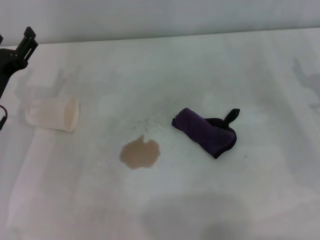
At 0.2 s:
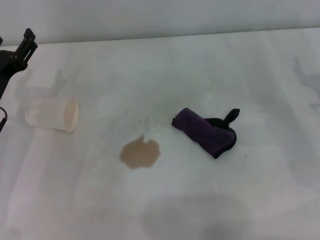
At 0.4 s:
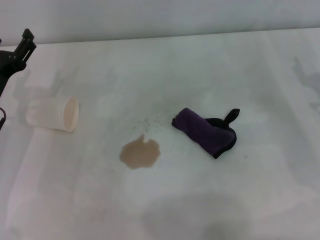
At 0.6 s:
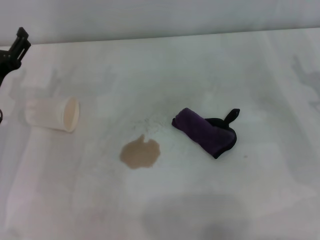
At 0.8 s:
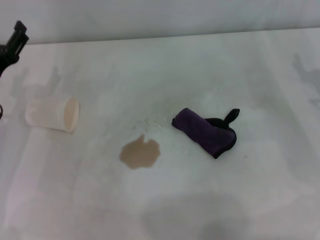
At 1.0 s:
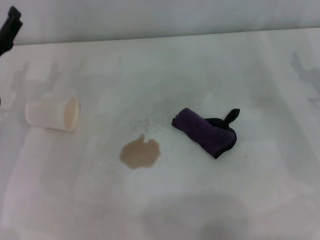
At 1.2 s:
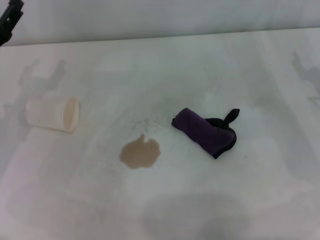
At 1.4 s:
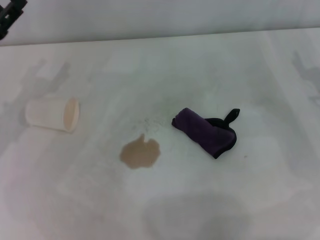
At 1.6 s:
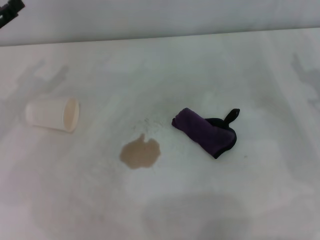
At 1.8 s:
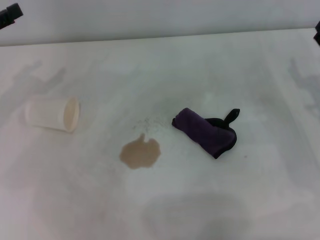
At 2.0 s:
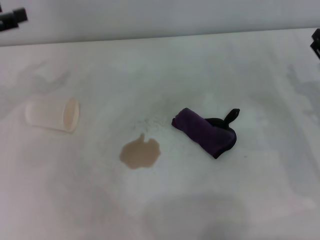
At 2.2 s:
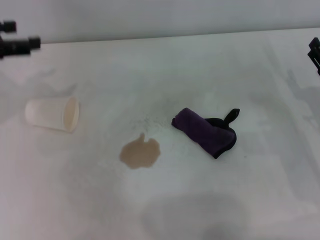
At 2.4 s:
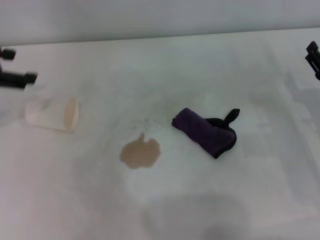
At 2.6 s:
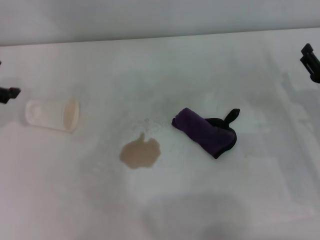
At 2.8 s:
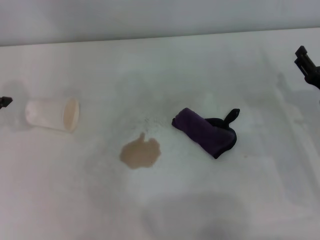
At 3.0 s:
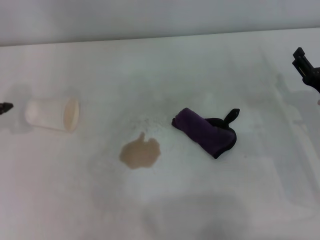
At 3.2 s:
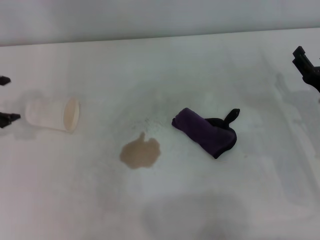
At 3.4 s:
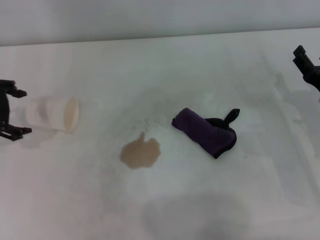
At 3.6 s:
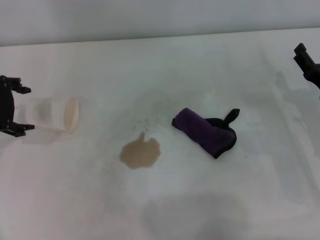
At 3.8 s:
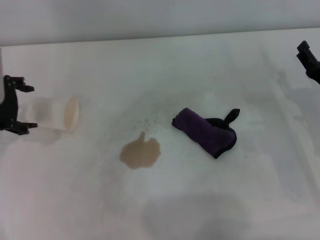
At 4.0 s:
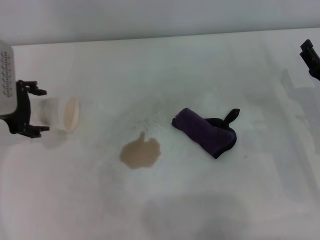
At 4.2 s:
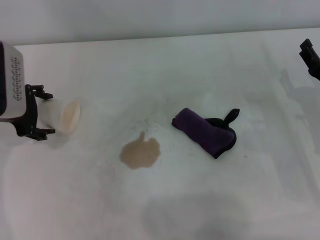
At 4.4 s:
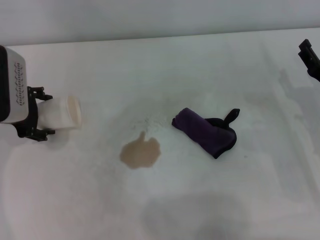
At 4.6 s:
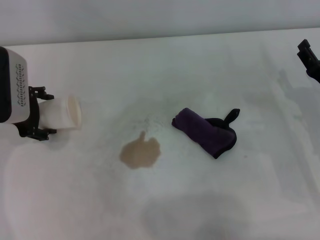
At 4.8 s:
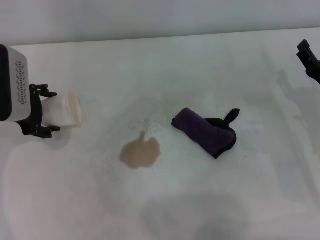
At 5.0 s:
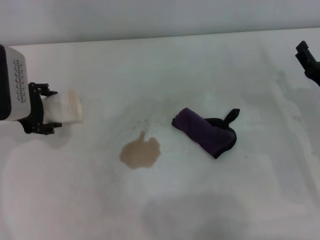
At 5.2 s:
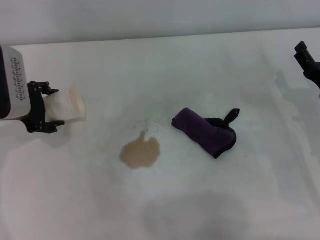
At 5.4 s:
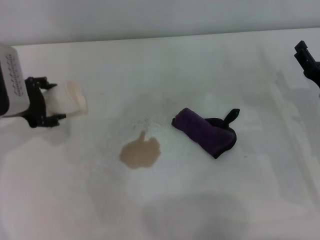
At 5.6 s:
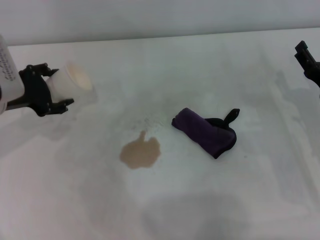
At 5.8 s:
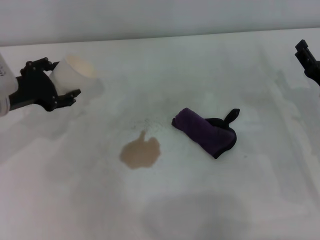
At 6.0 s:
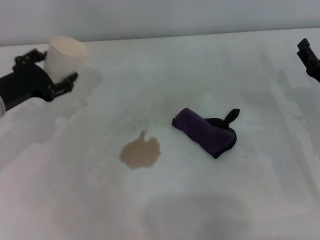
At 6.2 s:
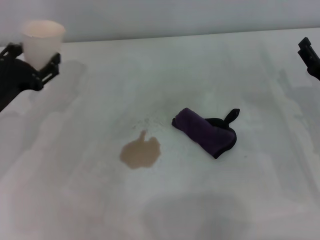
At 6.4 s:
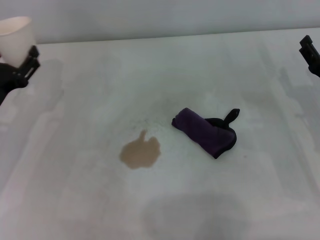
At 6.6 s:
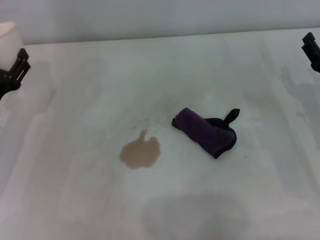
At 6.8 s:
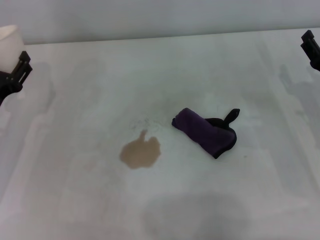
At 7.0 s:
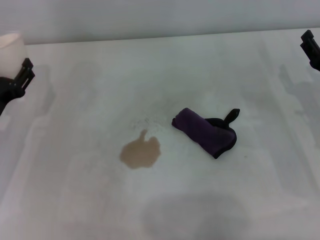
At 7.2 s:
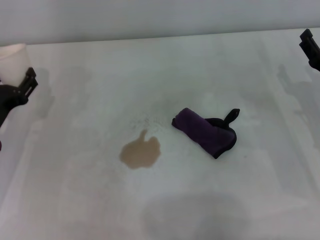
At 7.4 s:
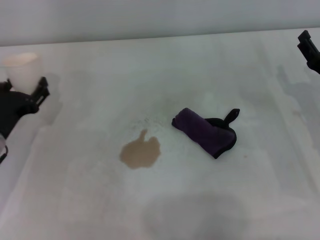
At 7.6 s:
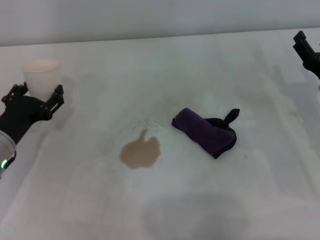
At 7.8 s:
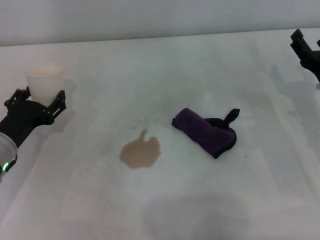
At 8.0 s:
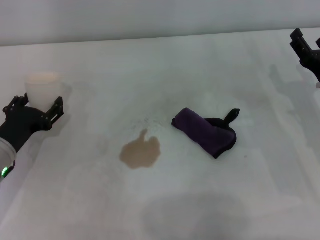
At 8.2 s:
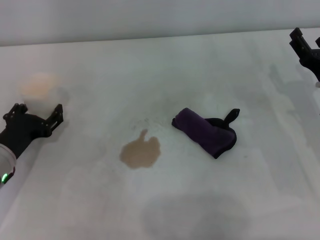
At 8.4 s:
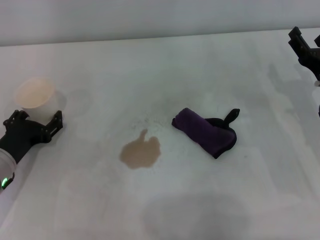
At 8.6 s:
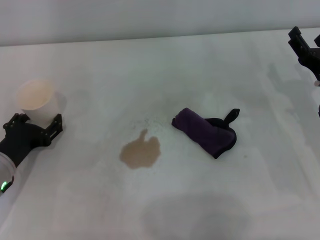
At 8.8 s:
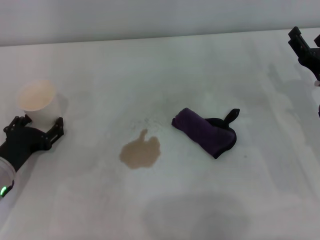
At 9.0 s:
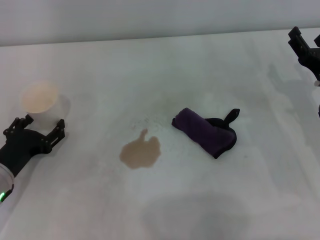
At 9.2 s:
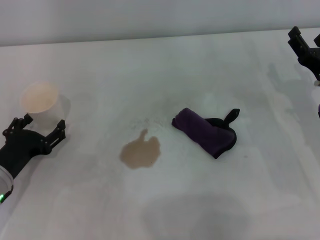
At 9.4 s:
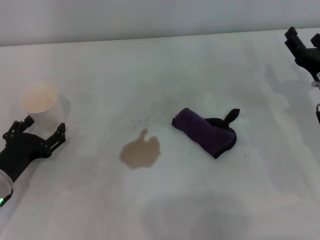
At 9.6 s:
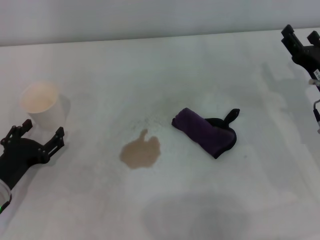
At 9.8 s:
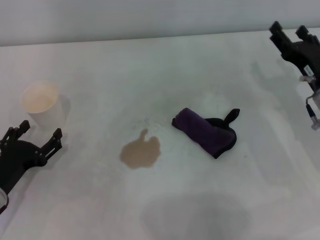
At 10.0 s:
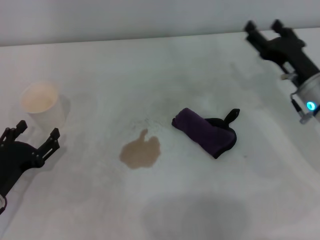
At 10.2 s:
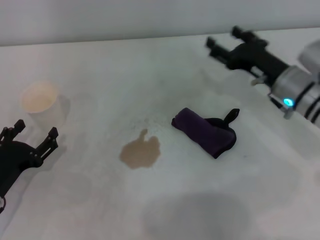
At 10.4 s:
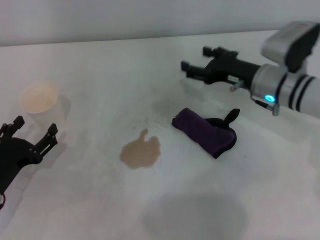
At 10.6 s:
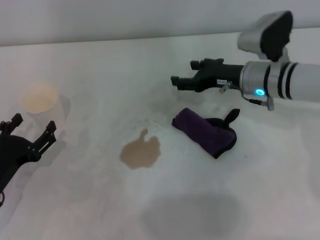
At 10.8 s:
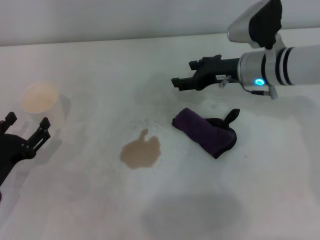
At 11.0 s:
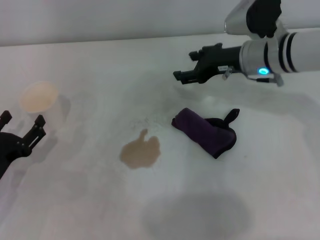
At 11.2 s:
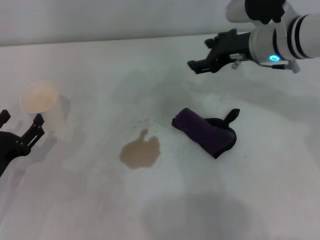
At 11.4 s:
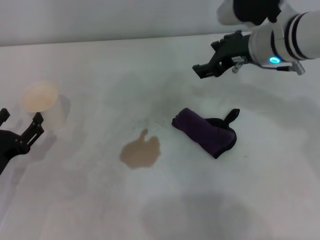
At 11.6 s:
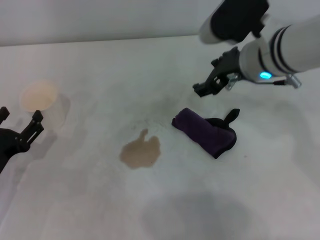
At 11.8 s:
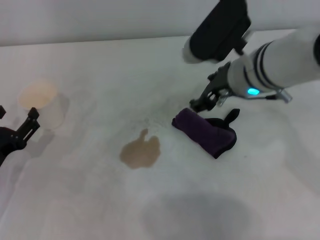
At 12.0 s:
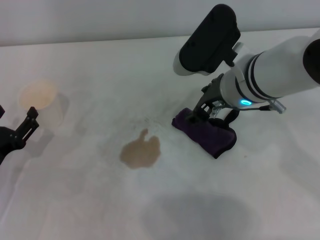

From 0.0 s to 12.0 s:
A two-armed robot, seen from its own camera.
Step, from 0.0 s to 5.0 s: Grasp the paper cup with the left gripper.
Step, from 5.4 s to 8.2 s: Stand the paper cup upright with the left gripper.
From 0.0 s to 1.6 s: The left gripper travels upward and to the left by roughly 10 cm.
From 1.6 s to 3.0 s: The right gripper ends up some 5 cm from where it was; the left gripper travels upward by approximately 5 cm.
From 3.0 s to 4.4 s: The left gripper travels downward and to the right by roughly 10 cm.
From 6.0 s to 7.6 s: The left gripper travels downward by roughly 5 cm.
From 7.6 s to 9.0 s: There are only small adjustments of the grippers.
From 9.0 s to 10.4 s: The right gripper is displaced to the left and forward by approximately 10 cm.
From 10.4 s to 12.0 s: The right gripper goes about 15 cm upward and to the left.

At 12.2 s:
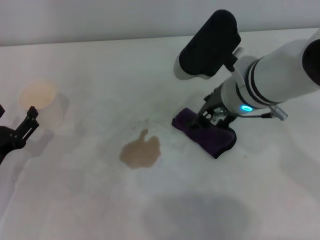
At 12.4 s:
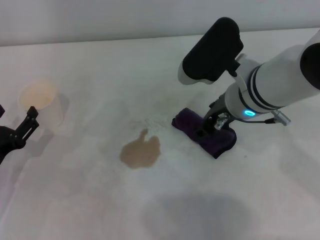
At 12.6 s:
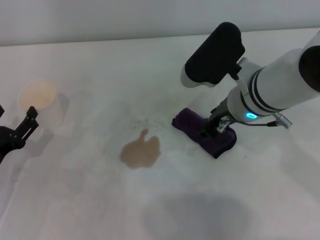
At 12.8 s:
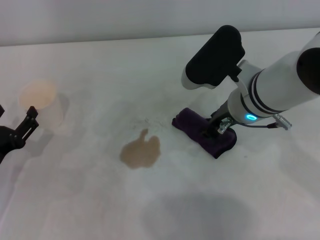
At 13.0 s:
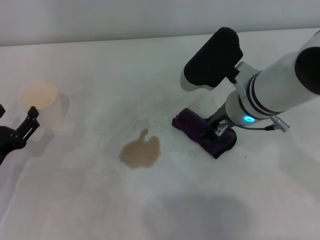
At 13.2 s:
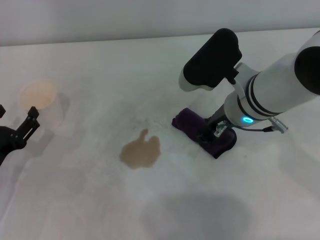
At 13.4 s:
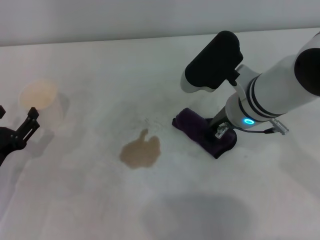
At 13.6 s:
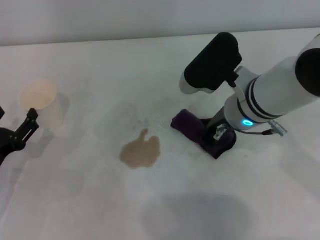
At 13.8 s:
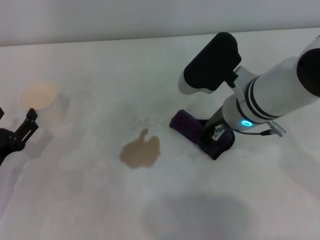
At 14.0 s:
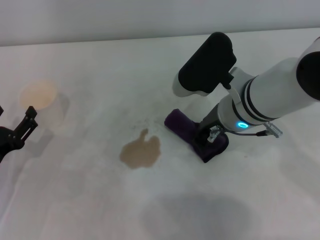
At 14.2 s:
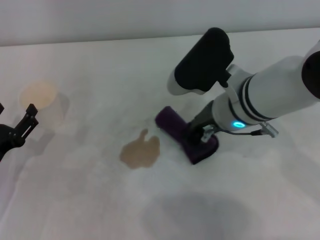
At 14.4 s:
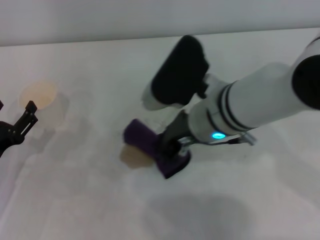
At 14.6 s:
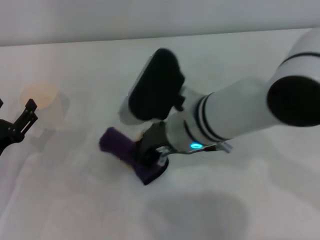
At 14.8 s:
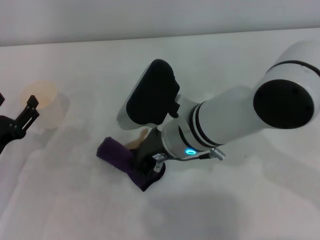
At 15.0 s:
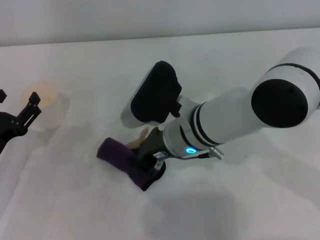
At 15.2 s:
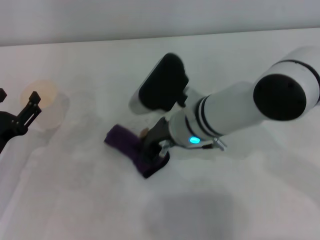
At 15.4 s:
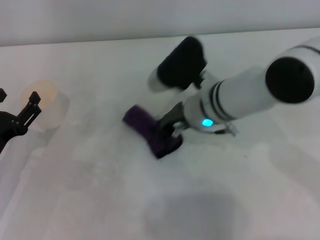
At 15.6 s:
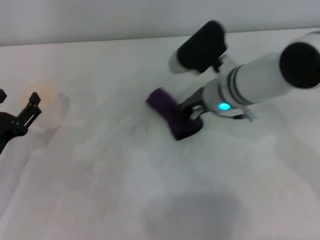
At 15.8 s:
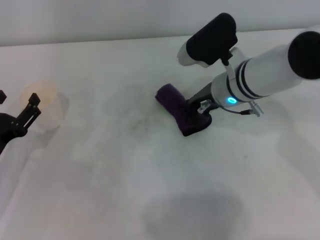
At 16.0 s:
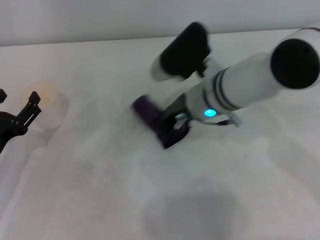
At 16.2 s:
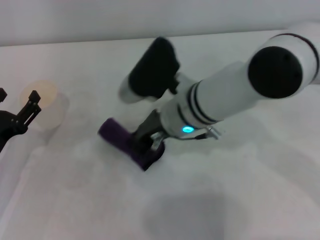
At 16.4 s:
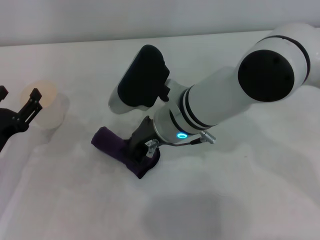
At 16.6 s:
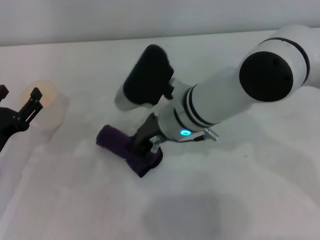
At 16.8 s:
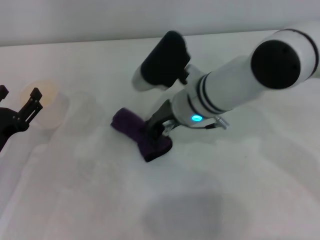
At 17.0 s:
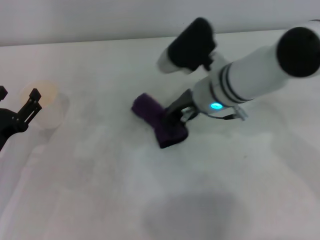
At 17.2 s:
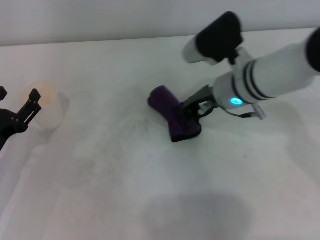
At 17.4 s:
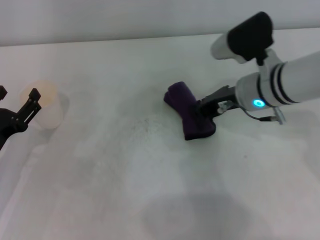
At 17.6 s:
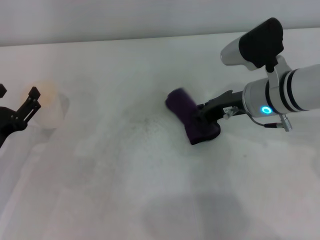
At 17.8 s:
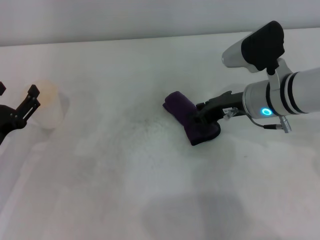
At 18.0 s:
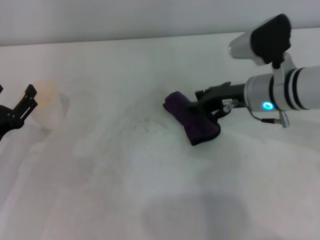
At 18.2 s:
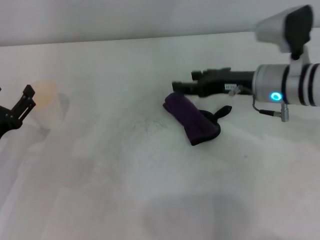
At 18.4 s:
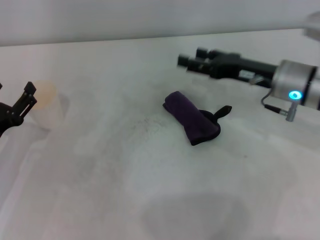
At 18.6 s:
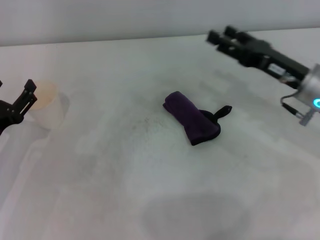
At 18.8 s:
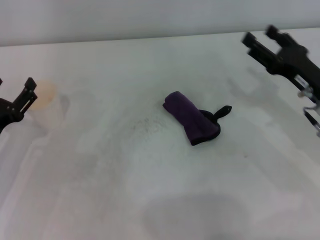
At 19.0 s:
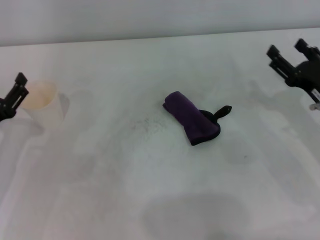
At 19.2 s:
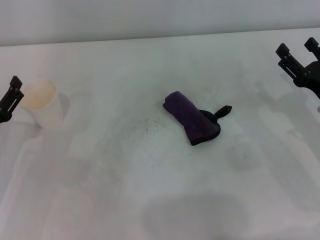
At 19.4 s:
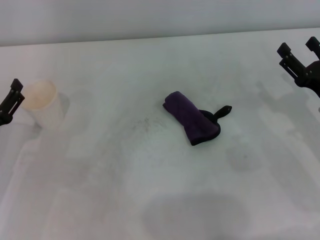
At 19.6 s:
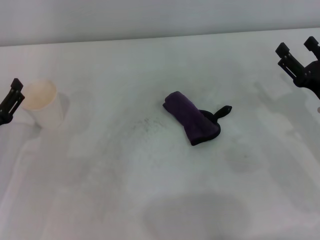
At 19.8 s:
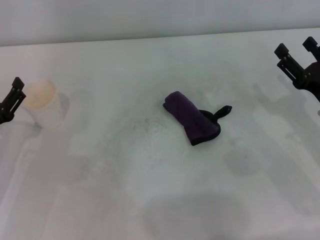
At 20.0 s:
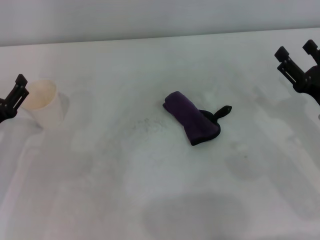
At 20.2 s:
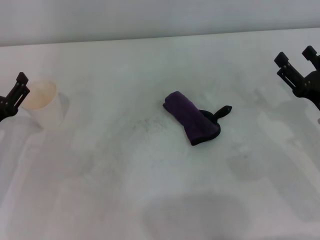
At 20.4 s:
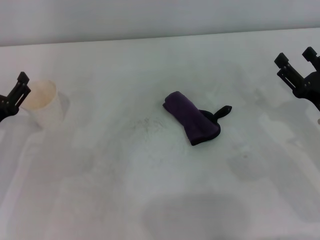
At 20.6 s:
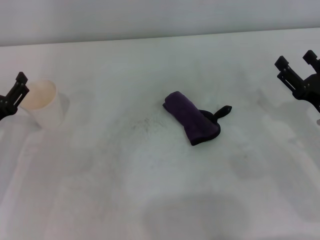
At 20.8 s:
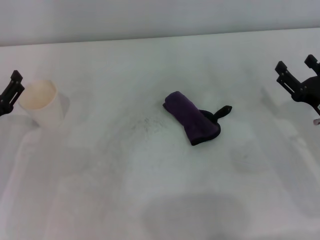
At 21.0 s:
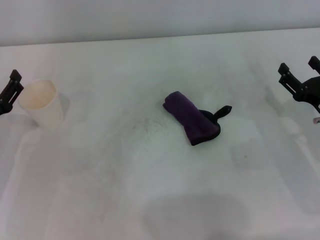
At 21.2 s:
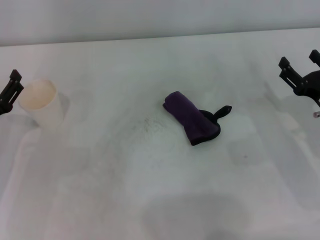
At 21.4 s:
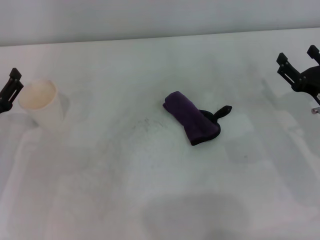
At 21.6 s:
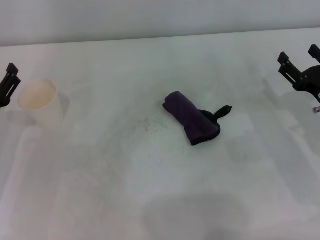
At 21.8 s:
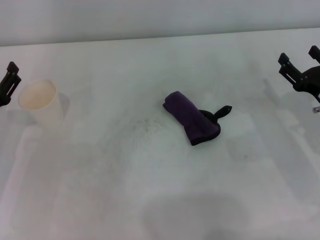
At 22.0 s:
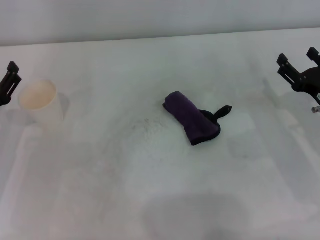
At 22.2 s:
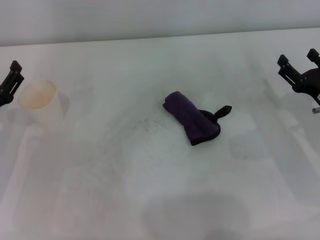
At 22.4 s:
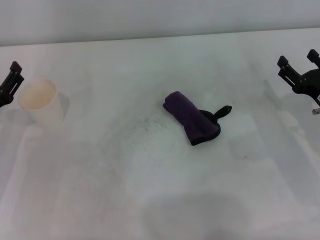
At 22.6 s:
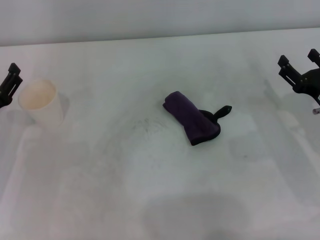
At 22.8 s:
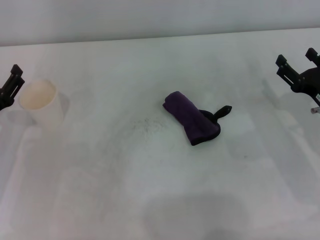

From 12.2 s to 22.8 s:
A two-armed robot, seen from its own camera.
Step, from 14.0 s to 16.8 s: Wipe the stains off the table with the right gripper.
Step, from 17.2 s to 17.6 s: Place the rag on the table with the right gripper.
From 12.2 s to 13.8 s: The right gripper closes.
From 13.8 s to 15.2 s: The right gripper moves to the left, about 5 cm.
From 15.2 s to 16.8 s: The right gripper reaches some 5 cm to the right, then returns.
From 16.8 s to 18.2 s: The right gripper goes some 15 cm to the right, and opens.
From 18.2 s to 19.8 s: The right gripper goes about 15 cm backward, to the right and downward.
From 19.8 s to 21.2 s: There are only small adjustments of the grippers.
From 21.2 s to 22.8 s: Both grippers stay put.
